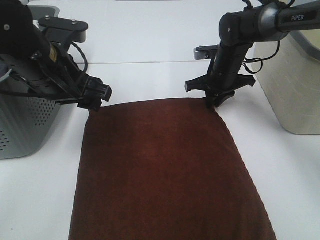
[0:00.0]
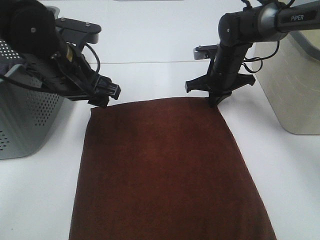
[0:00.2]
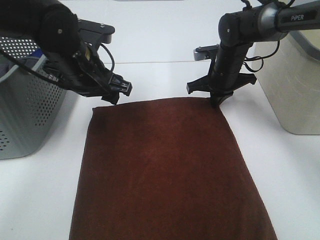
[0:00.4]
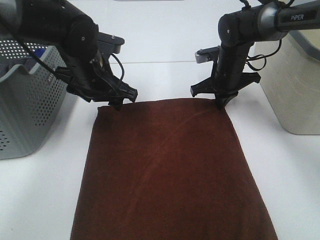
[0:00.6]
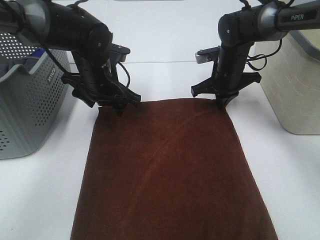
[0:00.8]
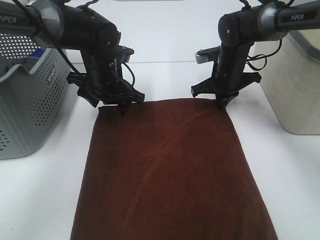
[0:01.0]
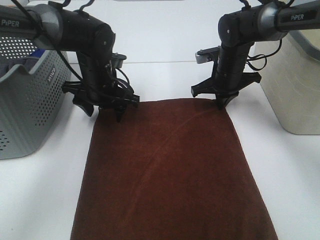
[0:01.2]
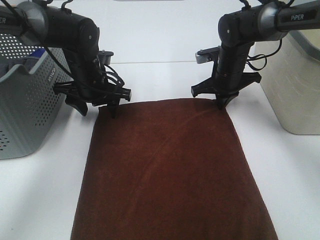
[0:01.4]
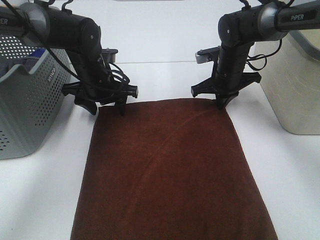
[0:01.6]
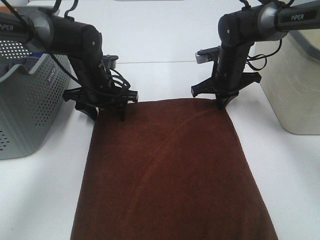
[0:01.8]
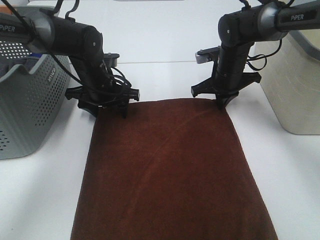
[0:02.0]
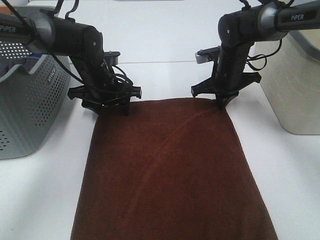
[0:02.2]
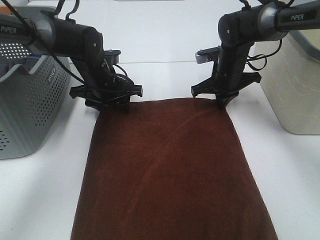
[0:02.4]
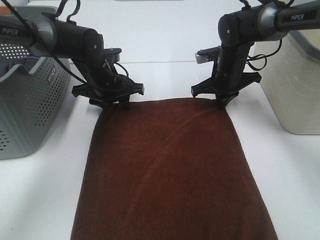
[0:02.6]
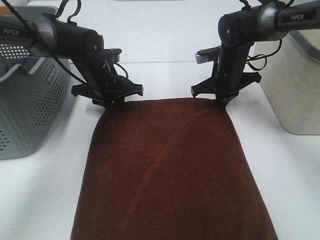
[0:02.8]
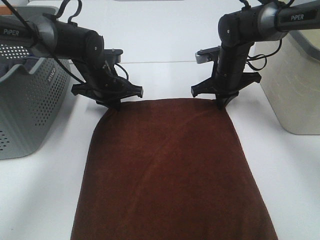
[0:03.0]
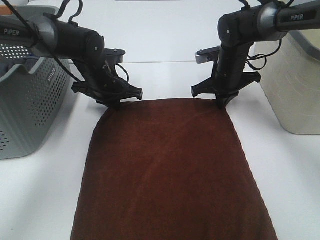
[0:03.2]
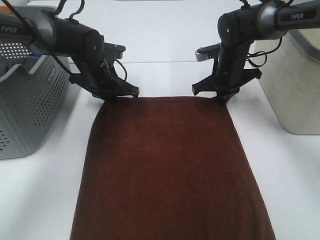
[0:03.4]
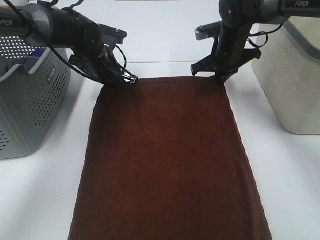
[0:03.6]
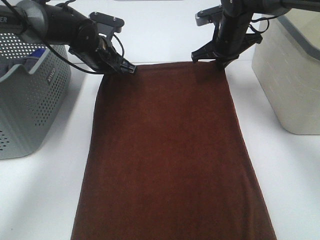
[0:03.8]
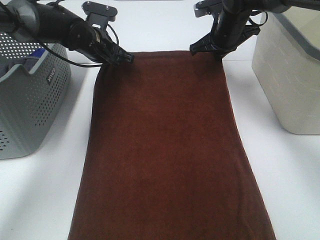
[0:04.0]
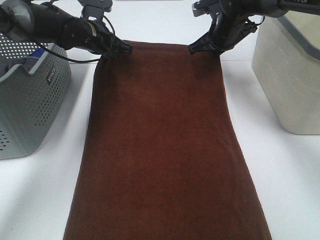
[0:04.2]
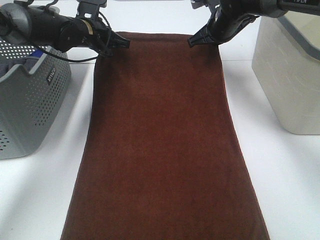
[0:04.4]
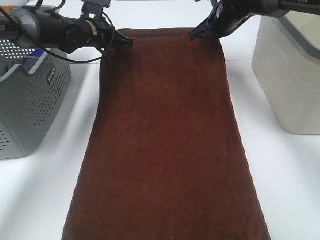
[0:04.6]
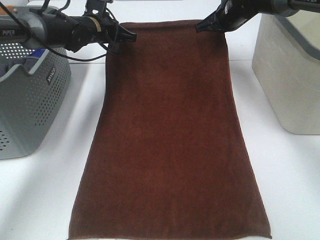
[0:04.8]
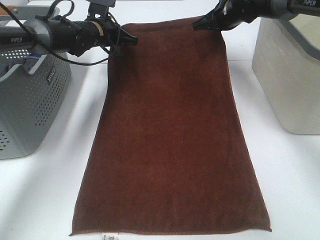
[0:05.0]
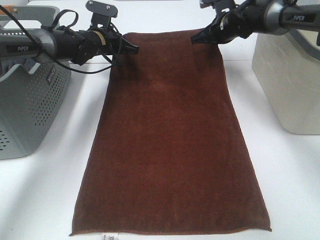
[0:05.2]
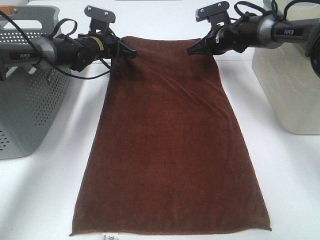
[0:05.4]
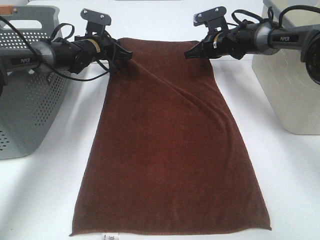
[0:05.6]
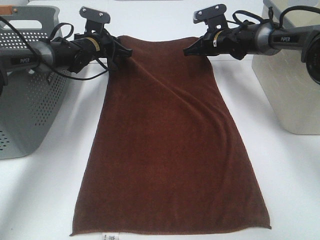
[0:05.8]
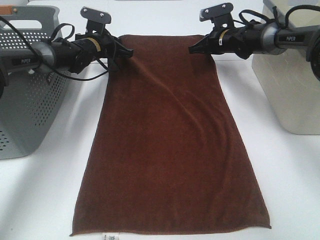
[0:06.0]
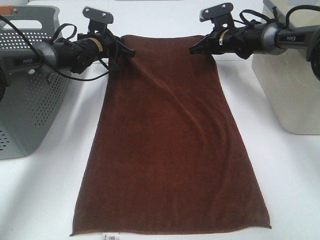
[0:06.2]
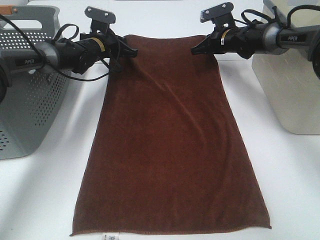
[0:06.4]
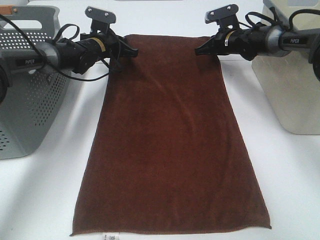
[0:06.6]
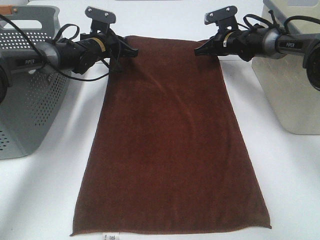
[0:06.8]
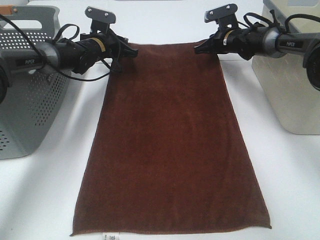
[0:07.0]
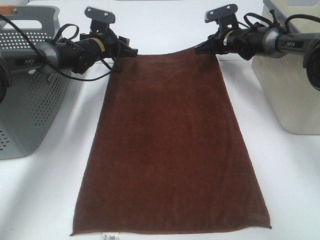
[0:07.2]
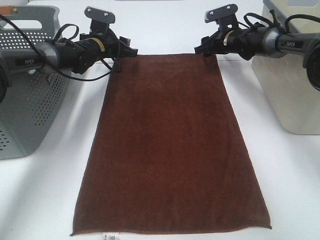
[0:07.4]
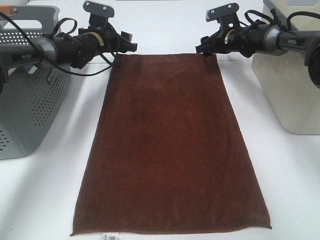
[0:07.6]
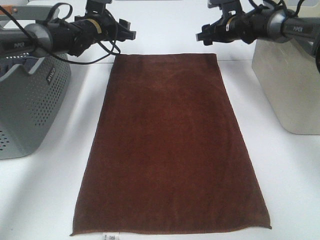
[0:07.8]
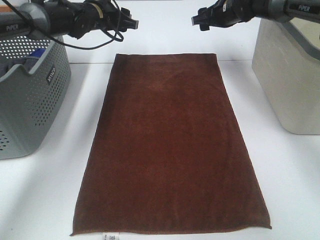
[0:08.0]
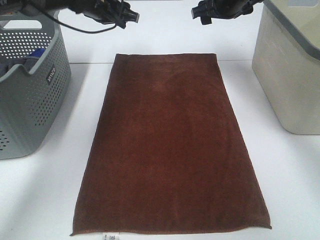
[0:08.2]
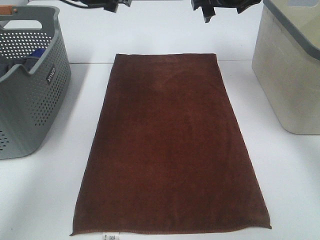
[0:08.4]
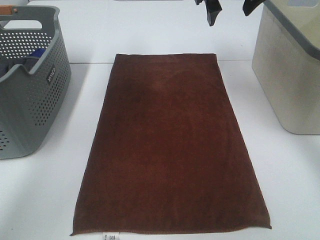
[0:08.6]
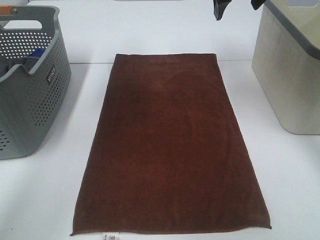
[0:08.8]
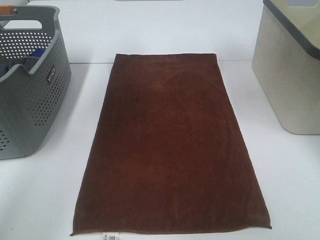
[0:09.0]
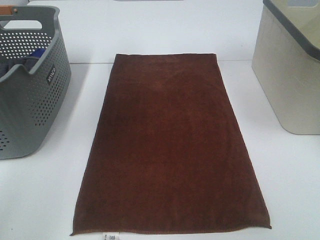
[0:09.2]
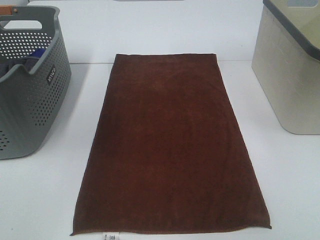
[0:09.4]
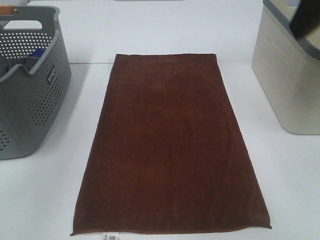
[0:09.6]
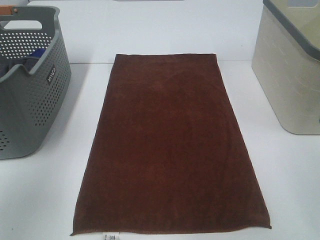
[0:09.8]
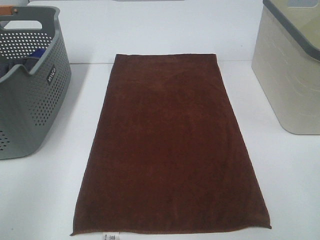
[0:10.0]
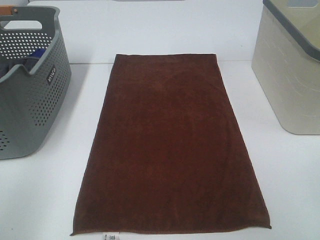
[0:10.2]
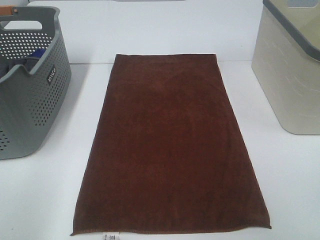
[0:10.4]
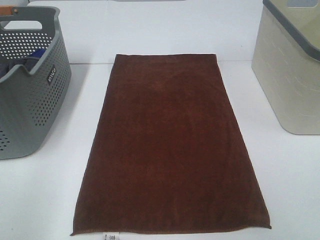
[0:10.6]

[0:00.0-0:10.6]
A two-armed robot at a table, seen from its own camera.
Task of the whole recording: Remove the towel and place it.
0:00.0 to 0:01.6: The left gripper is displaced forward and downward by roughly 15 cm.
0:01.6 to 0:03.0: The left gripper closes.
0:03.0 to 0:04.6: The left gripper is displaced forward and upward by about 10 cm, while the right gripper goes approximately 10 cm upward and forward.
0:04.6 to 0:06.0: Both grippers travel together downward, approximately 5 cm.
0:06.0 to 0:07.6: The left gripper opens its fingers, while the right gripper opens up.
0:07.6 to 0:09.0: The grippers both shift upward and backward by roughly 35 cm.
0:09.0 to 0:10.6: The left gripper travels backward and downward by about 40 cm. Meanwhile the right gripper heads backward, covering approximately 40 cm.

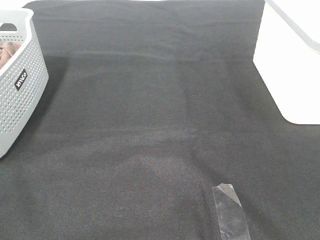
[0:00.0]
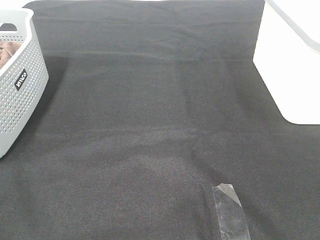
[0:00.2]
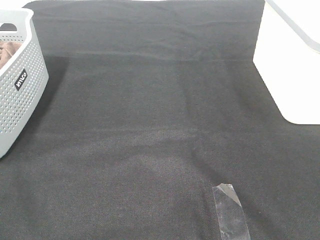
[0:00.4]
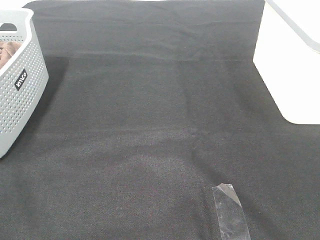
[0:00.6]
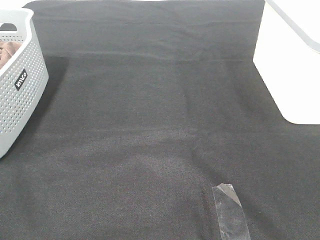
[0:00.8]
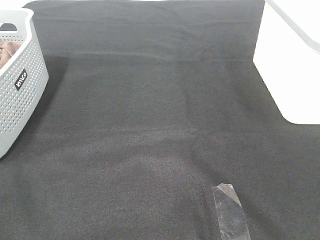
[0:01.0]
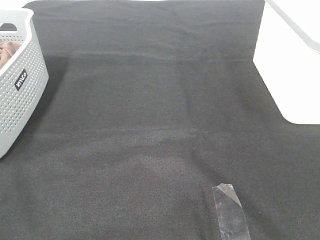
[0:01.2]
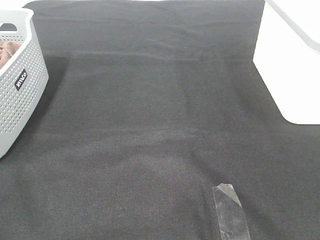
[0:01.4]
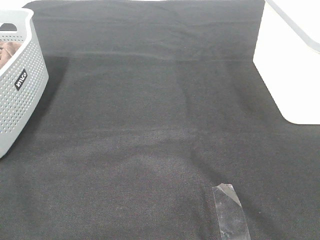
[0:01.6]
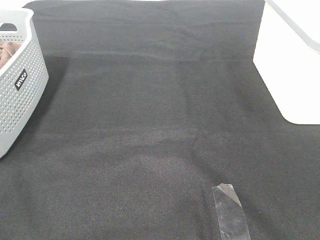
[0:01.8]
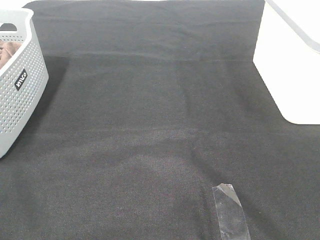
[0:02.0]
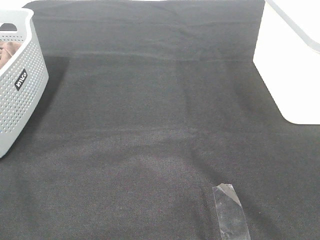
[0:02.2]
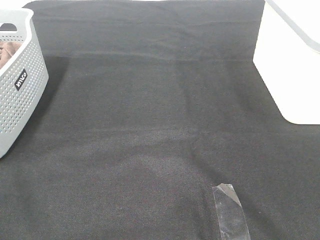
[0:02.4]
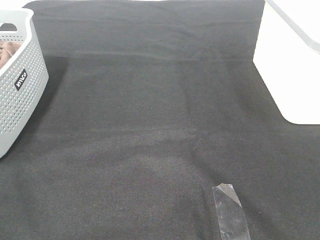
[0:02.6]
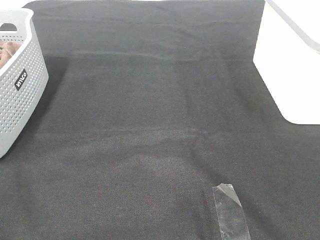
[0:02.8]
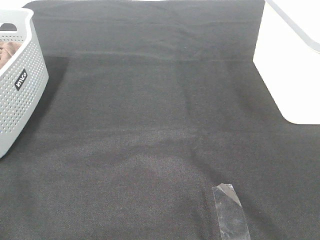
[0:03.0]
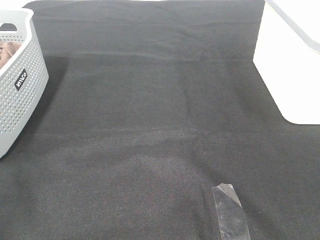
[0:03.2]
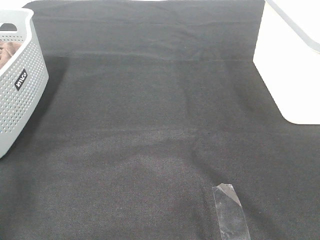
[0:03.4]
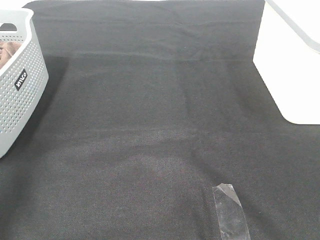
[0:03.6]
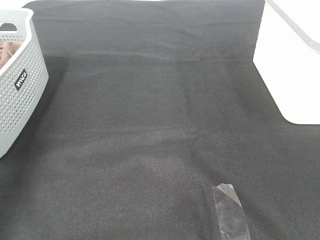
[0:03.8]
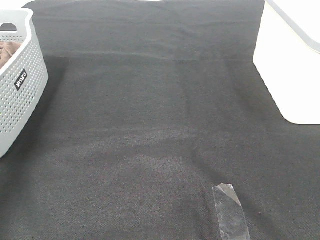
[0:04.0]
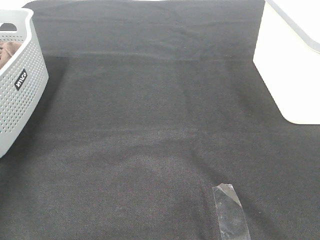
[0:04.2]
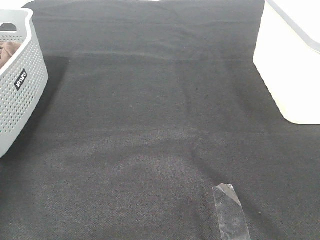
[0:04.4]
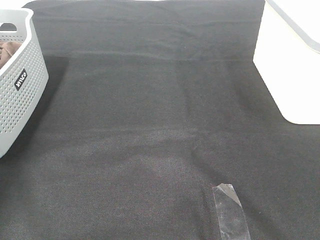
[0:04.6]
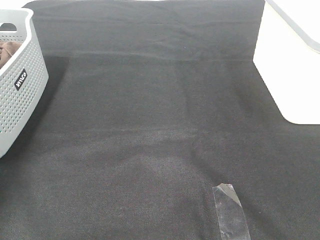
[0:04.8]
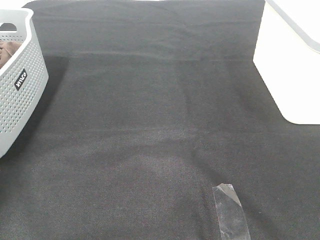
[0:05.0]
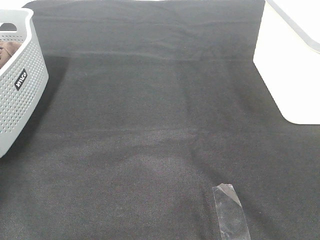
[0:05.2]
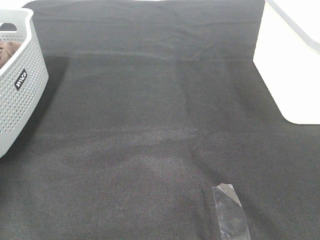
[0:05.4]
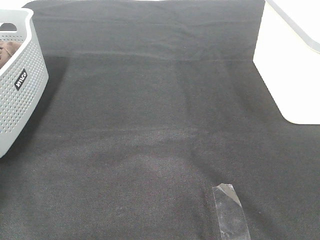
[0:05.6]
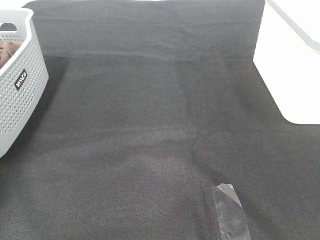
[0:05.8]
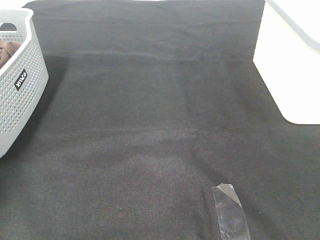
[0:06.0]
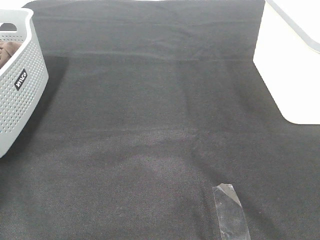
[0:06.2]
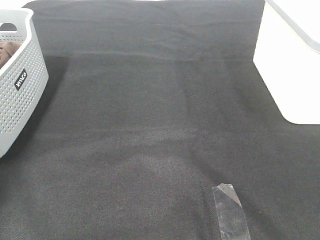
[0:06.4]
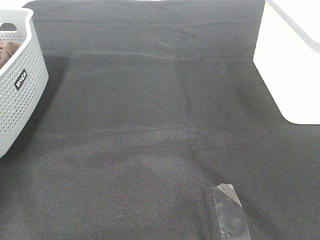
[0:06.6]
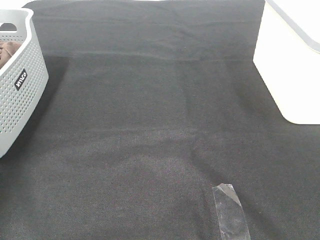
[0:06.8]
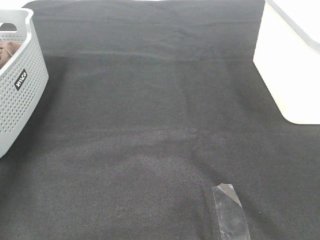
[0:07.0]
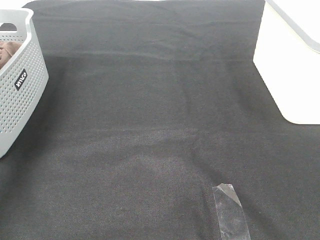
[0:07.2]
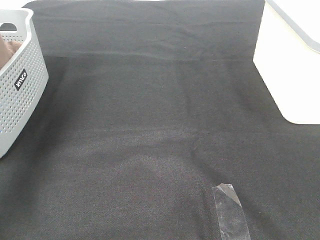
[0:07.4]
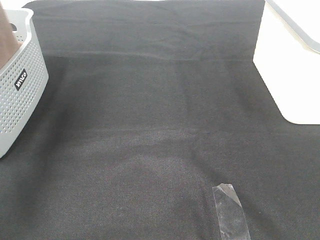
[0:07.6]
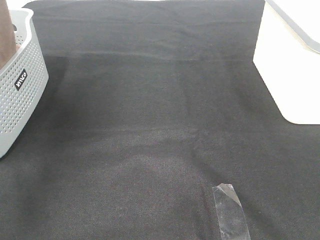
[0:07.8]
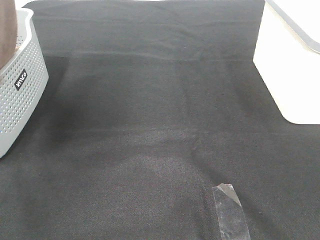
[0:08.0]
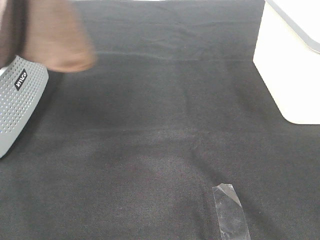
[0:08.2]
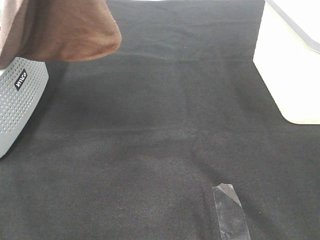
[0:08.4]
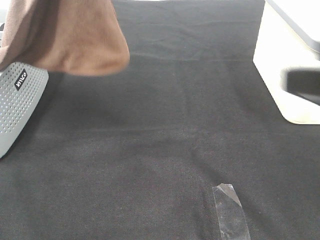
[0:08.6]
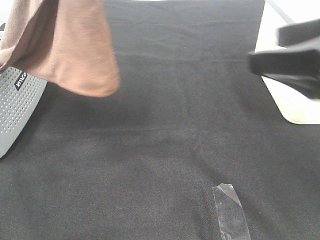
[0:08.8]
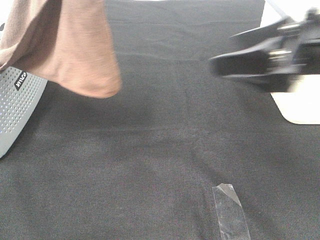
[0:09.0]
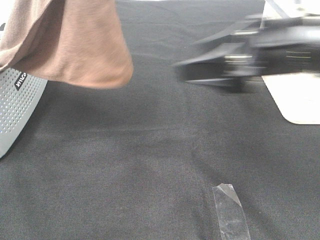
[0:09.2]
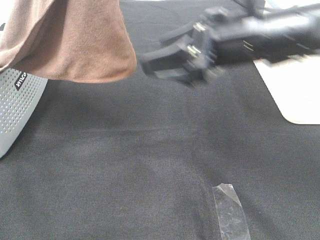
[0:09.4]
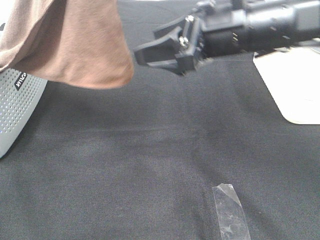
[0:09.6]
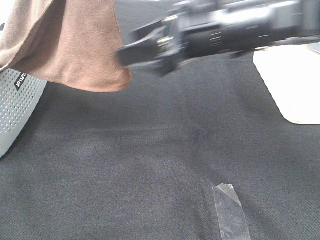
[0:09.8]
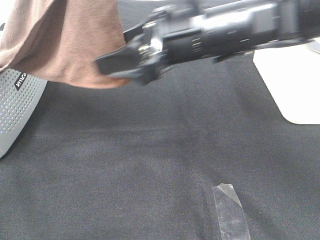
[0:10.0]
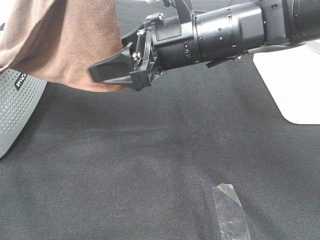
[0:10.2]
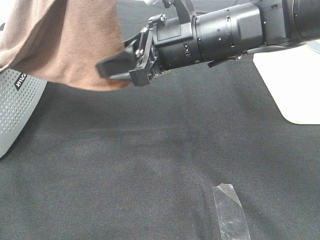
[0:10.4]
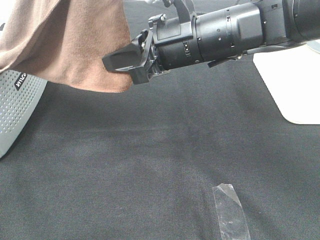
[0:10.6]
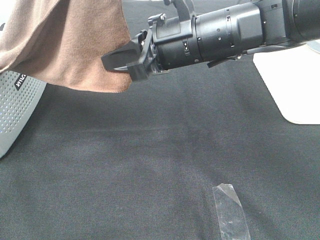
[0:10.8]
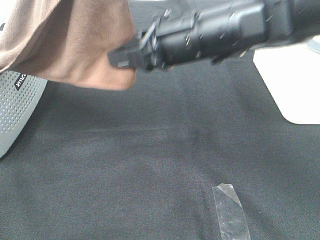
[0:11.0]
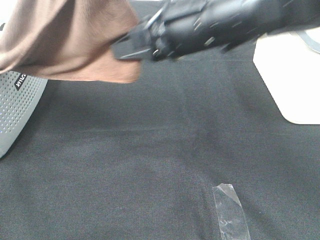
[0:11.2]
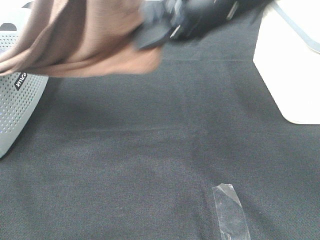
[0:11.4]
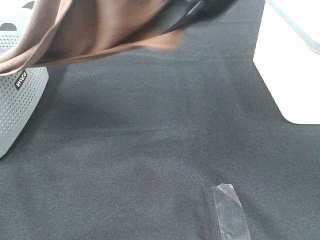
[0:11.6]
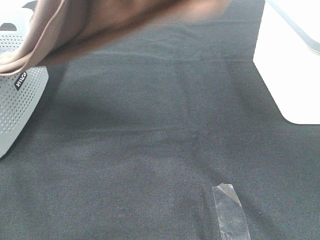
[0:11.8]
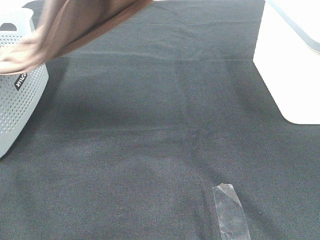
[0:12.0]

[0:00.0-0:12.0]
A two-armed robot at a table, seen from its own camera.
Task of the whole recording: Remove the towel and place it.
Step, 0:08.0 to 0:11.4: Right hand: grab a corner of the brown towel and straighten it.
0:00.0 to 0:01.6: Both grippers stay about where they are.
0:03.0 to 0:04.4: The left gripper travels forward by approximately 40 cm.
0:06.0 to 0:07.6: The left gripper heads upward, to the right and backward, covering approximately 30 cm.
0:07.6 to 0:09.0: The left gripper goes roughly 15 cm to the right and backward. The right gripper goes roughly 25 cm forward.
0:09.0 to 0:10.4: The right gripper is displaced to the left and forward by roughly 15 cm, and closes up.
0:10.4 to 0:12.0: The right gripper shifts some 25 cm upward, and closes its fingers.
